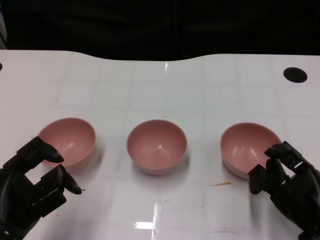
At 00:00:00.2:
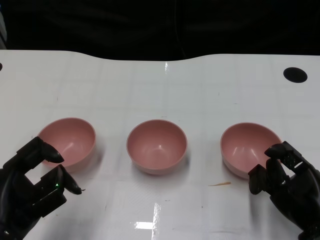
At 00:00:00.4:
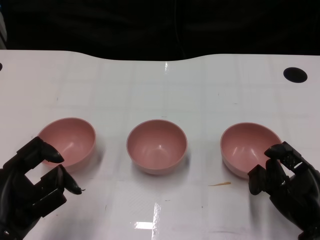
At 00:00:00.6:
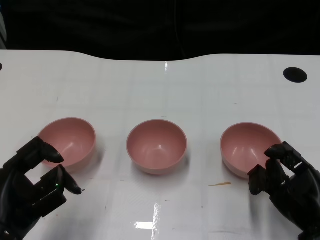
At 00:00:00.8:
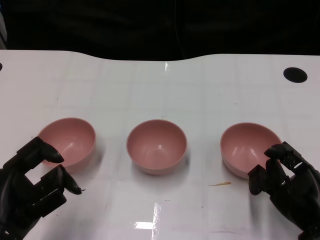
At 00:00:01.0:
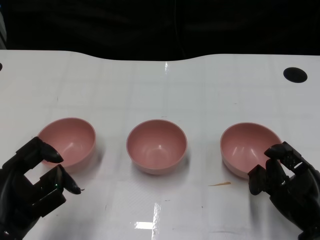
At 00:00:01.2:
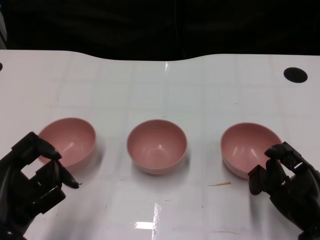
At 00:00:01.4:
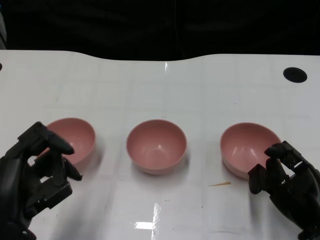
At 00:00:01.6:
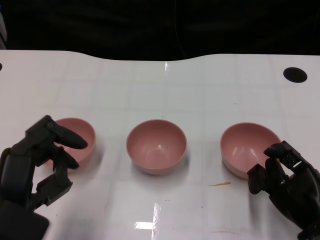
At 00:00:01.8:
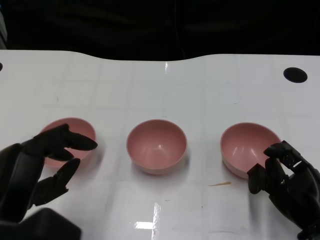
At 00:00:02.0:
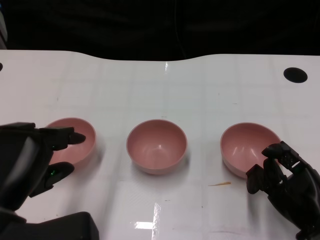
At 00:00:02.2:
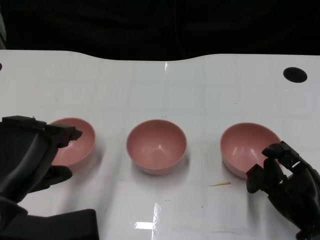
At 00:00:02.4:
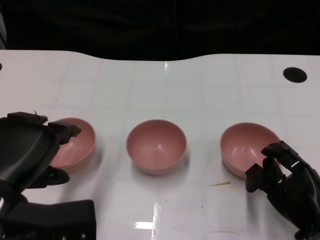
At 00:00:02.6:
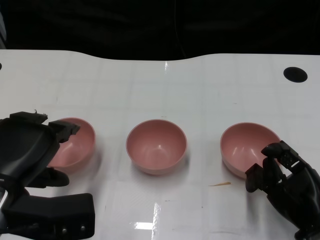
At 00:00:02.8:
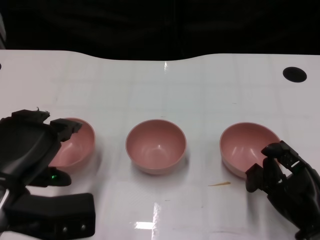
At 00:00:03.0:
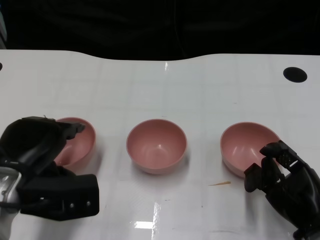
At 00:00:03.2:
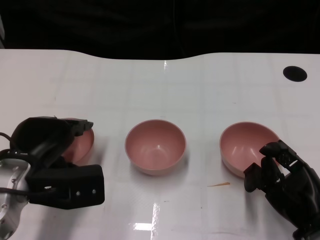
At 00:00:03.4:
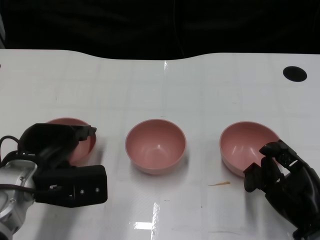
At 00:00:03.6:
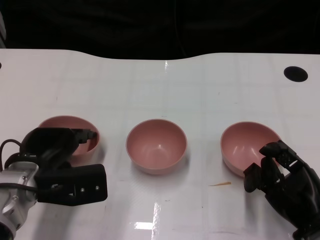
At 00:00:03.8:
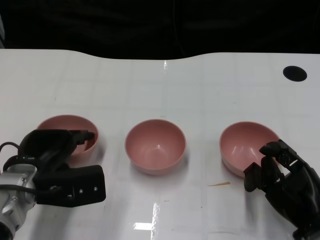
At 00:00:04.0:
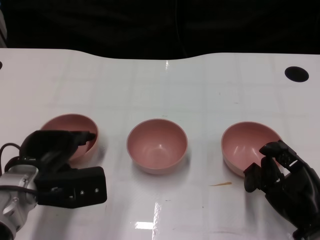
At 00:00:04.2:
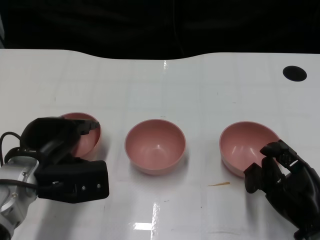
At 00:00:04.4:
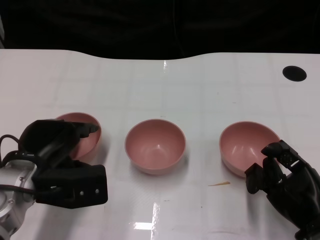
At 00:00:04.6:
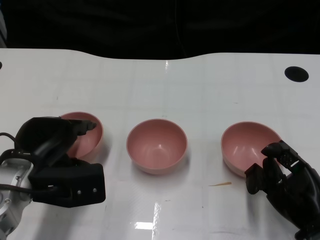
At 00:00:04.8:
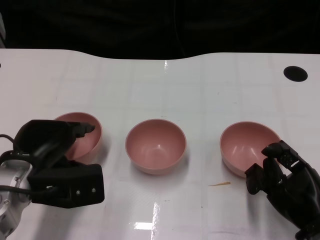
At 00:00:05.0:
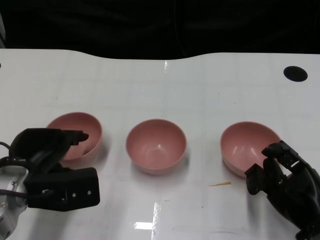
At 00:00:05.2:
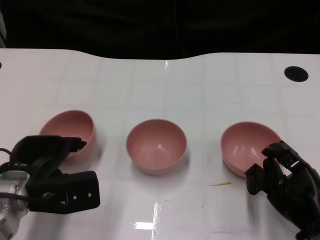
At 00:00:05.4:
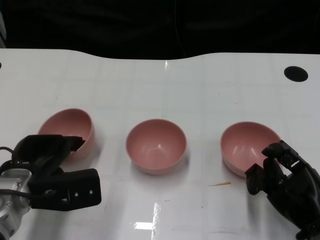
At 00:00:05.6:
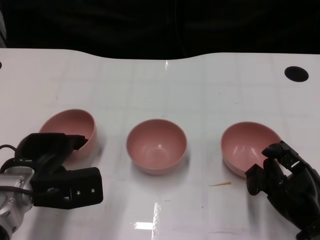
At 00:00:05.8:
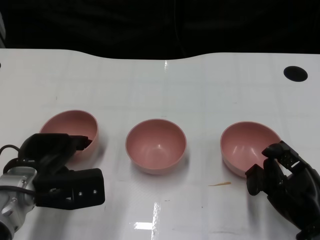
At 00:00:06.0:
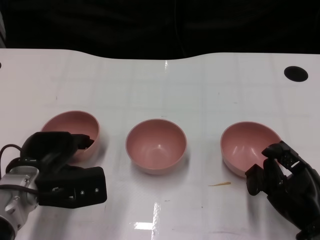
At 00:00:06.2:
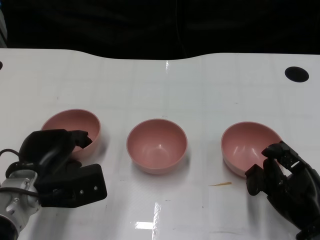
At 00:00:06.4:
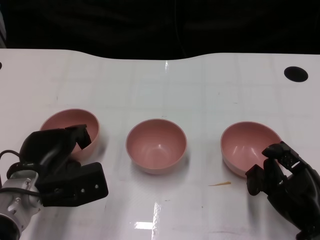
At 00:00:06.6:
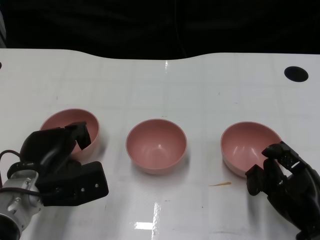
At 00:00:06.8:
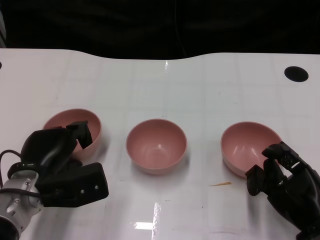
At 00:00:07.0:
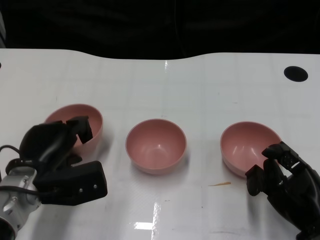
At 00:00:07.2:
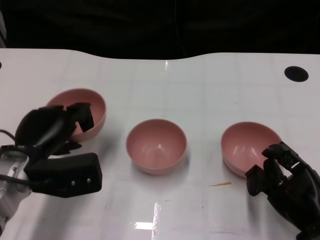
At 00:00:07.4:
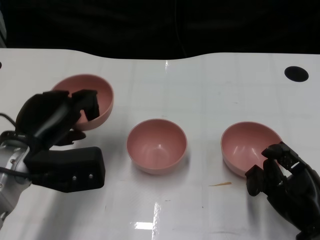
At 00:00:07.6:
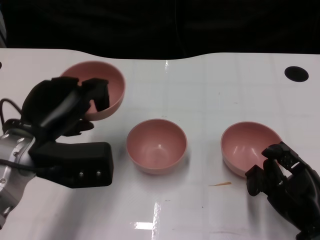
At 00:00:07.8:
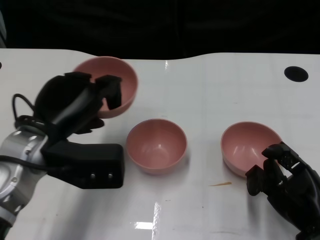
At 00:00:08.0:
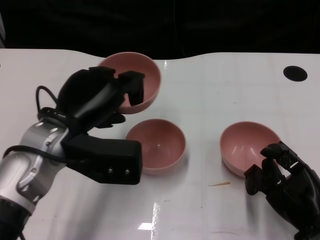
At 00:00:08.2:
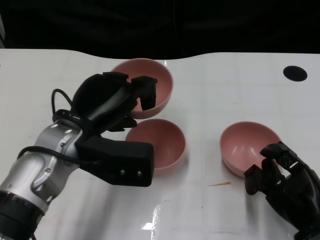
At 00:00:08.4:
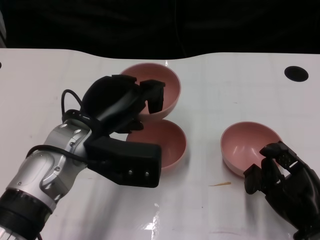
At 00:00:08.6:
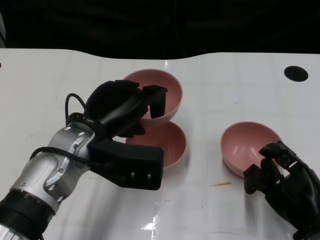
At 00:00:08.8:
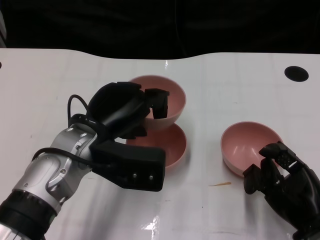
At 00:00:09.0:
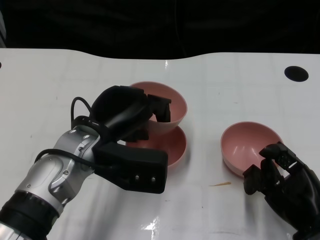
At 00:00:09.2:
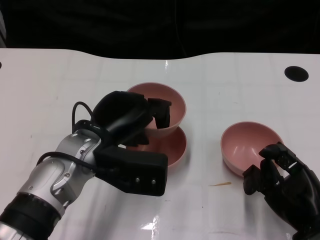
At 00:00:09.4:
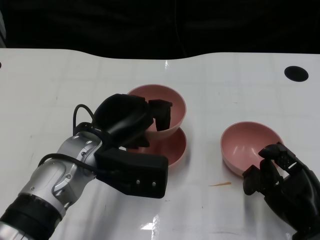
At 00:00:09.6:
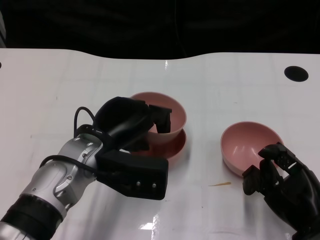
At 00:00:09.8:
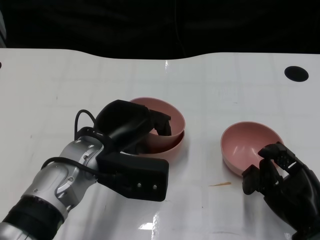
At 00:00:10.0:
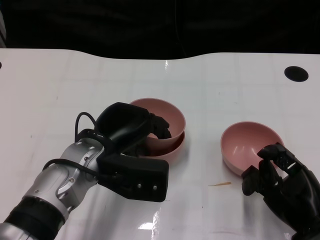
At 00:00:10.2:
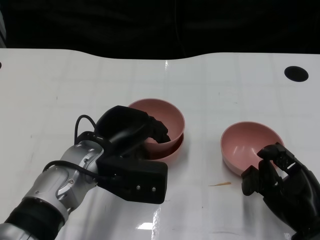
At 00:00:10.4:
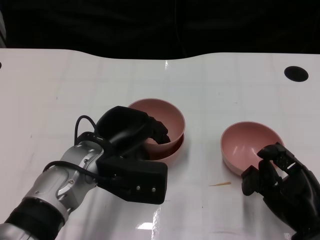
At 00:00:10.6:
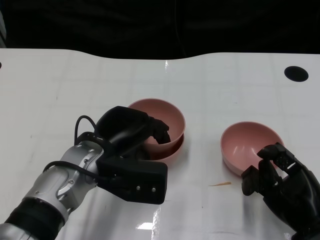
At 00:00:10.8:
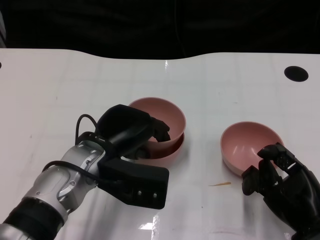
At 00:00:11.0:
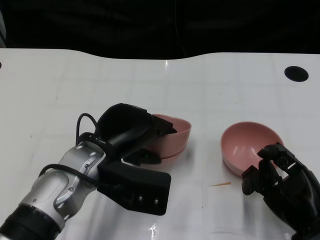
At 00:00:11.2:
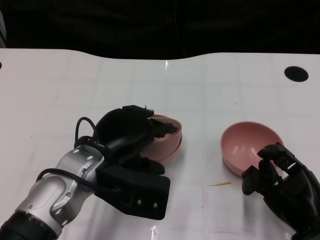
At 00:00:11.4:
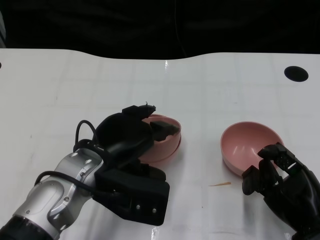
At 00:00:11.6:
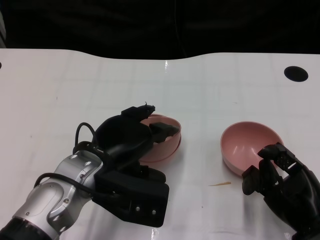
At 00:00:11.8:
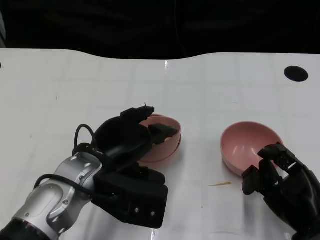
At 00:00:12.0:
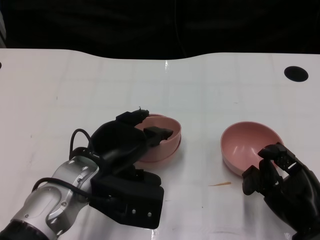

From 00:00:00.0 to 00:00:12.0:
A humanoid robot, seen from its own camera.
Task of the whole recording: Pick up the bowl on one side of the table and place it on top of the middle bowl, then pick up the bowl on the other side of the table and place it on top of the middle bowls.
Step, from 00:00:01.2 to 00:00:07.0: Grasp the bowl on the left with the left gripper.
From 00:00:01.6 to 00:00:03.0: The left hand is displaced forward by approximately 10 cm.
From 00:00:03.0 to 00:00:04.4: There are only small adjustments of the hands.
From 00:00:04.4 to 00:00:06.0: The hands move only a little.
From 00:00:06.0 to 00:00:07.6: The left hand goes some 10 cm upward.
From 00:00:07.6 to 00:00:09.0: The left hand heads to the right, covering some 10 cm.
From 00:00:09.0 to 00:00:12.0: There are only small adjustments of the hands.

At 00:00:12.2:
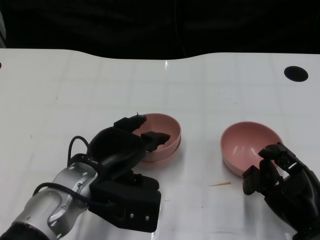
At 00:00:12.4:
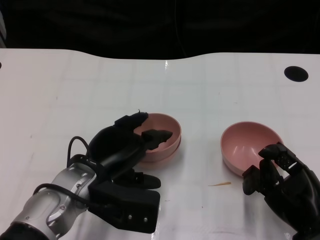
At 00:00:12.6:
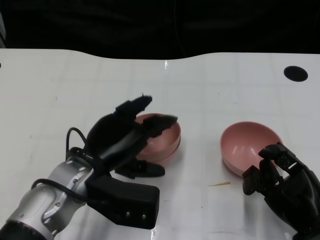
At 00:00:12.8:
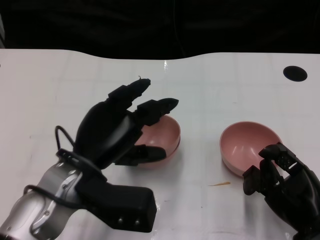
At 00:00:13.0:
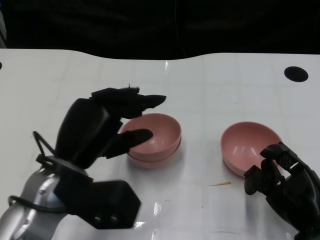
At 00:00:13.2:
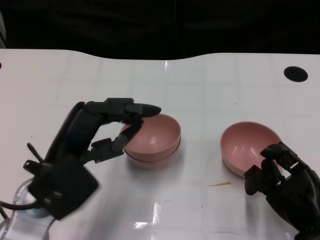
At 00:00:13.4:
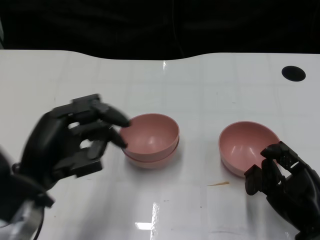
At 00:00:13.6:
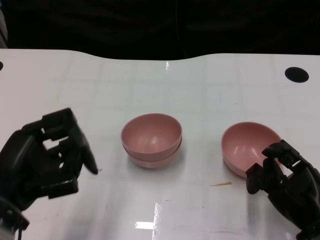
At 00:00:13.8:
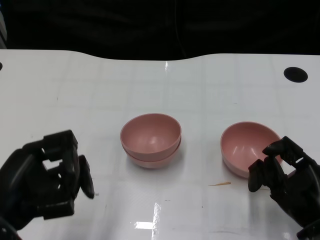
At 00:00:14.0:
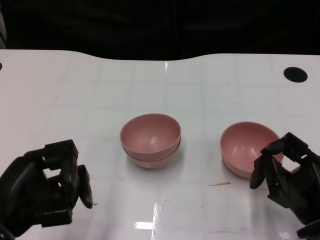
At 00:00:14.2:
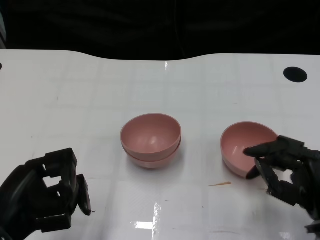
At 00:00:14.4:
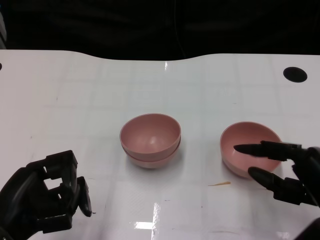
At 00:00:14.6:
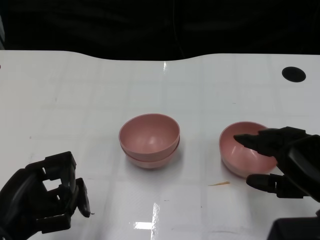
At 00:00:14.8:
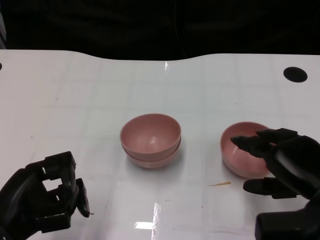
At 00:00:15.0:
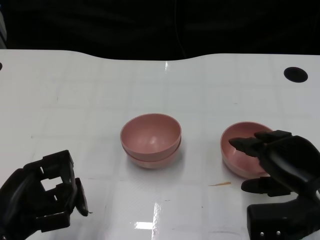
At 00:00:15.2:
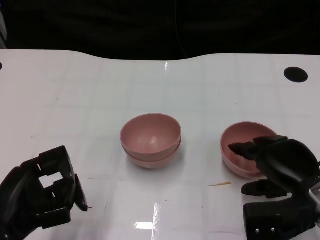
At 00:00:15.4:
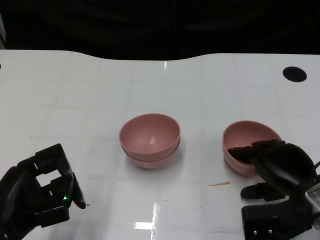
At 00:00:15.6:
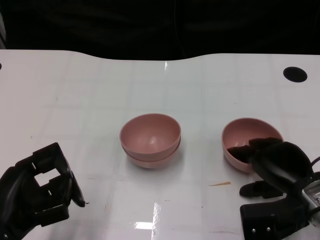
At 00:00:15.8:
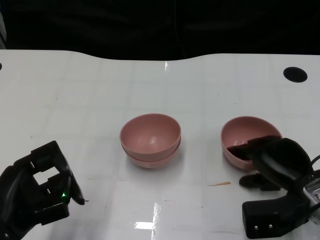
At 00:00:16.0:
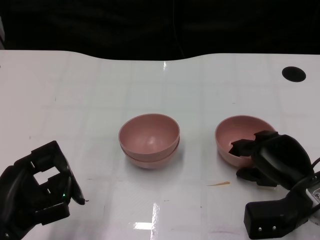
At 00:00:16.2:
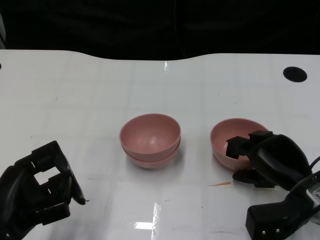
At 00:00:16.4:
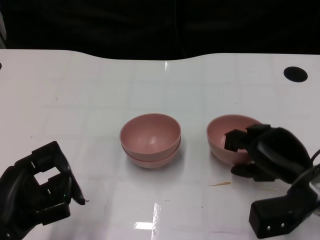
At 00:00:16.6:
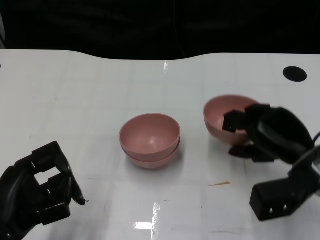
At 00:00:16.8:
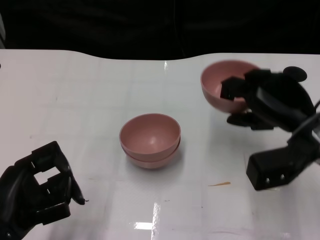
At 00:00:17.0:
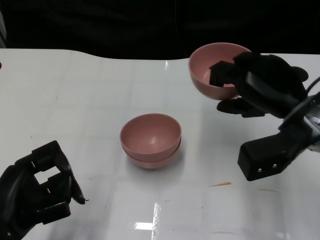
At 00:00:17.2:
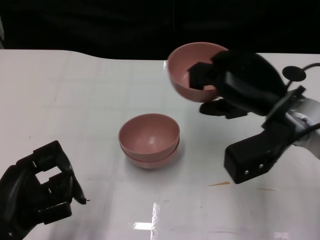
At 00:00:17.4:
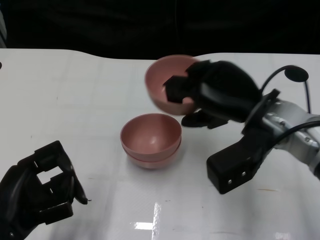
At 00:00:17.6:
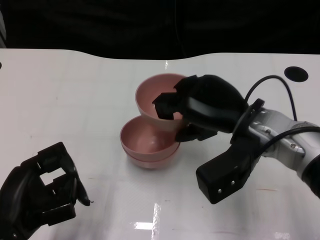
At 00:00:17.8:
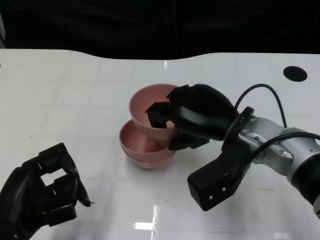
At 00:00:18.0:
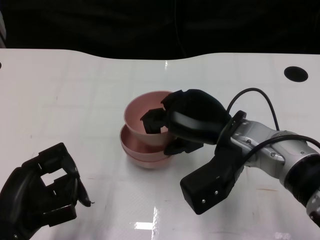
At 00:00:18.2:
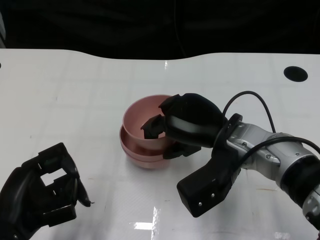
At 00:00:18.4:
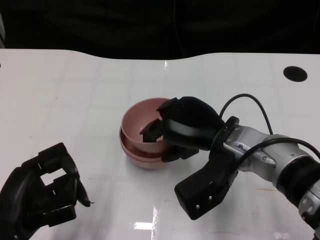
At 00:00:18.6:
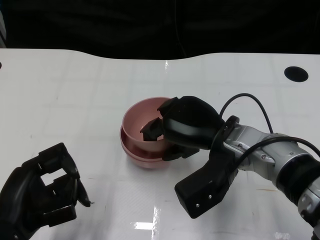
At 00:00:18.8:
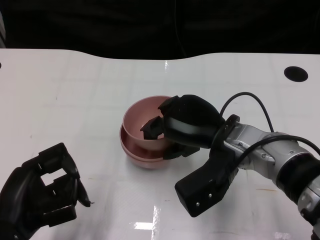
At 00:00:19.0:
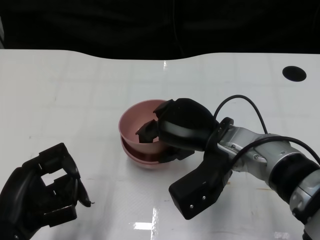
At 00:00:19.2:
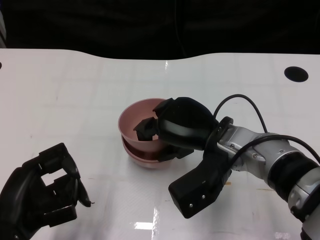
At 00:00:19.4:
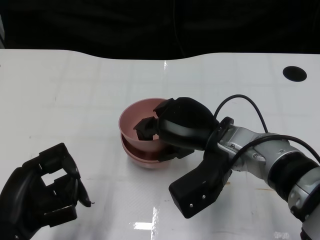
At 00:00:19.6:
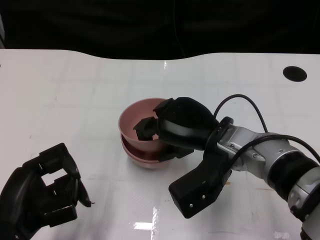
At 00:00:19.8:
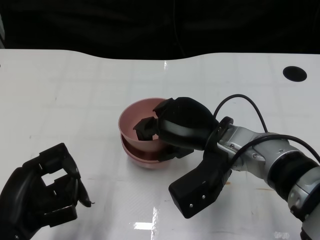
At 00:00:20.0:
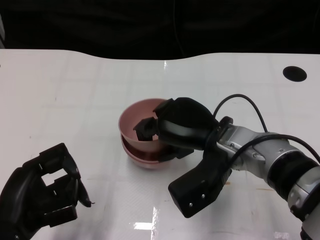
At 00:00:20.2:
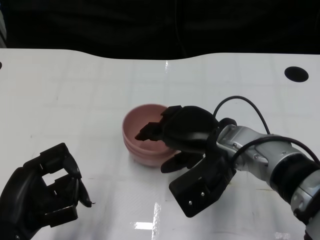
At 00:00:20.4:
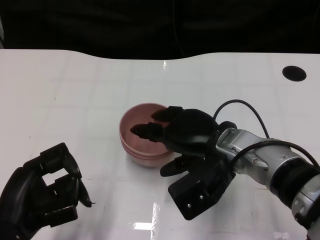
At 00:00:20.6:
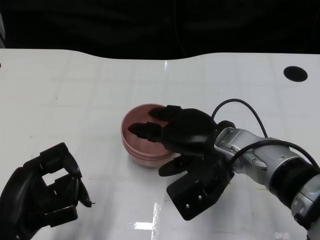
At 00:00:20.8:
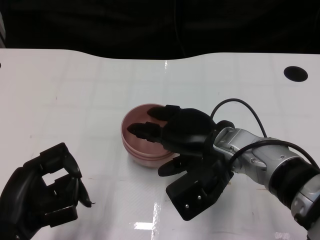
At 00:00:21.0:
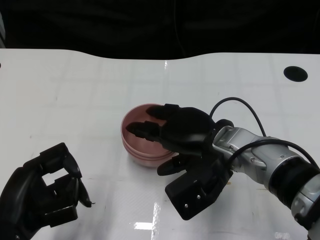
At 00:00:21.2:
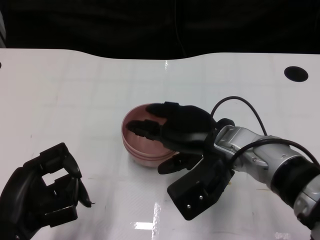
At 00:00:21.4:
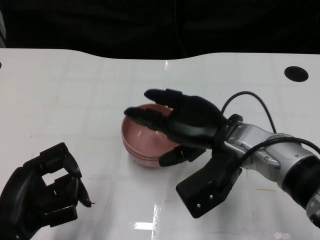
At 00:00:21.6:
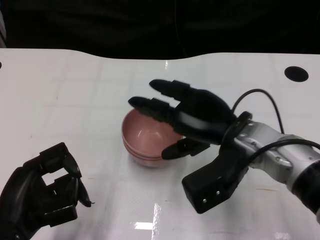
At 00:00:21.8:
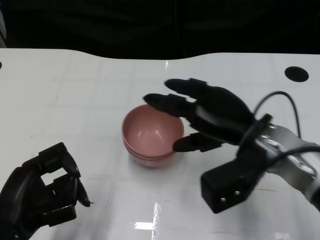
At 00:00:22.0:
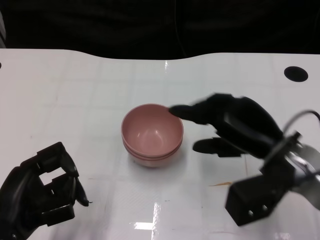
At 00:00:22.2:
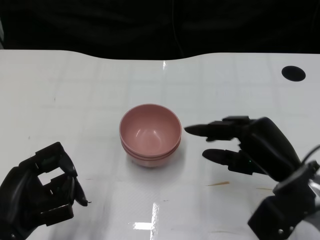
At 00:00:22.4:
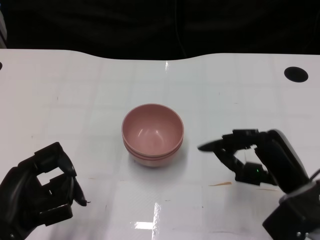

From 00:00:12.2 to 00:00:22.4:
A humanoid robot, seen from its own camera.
Task of the whole recording: Pick up the bowl on one side of the table and place it on top of the middle bowl, then pick up the bowl on the other side of the table and place it on top of the middle bowls.
Step, from 00:00:12.6 to 00:00:16.4: Grasp the bowl on the right with the right gripper.
Step, from 00:00:16.6 to 00:00:20.8: Place the bowl on the right onto the bowl in the middle with right gripper.
From 00:00:12.2 to 00:00:13.6: The left hand travels to the left and backward by about 15 cm.
From 00:00:13.6 to 00:00:15.2: The right hand changes place by about 5 cm.
From 00:00:16.6 to 00:00:18.0: The right hand is displaced to the left by roughly 10 cm.
From 00:00:18.0 to 00:00:21.0: The hands stay close to where they were, moving slightly.
From 00:00:21.0 to 00:00:22.4: The right hand shifts approximately 15 cm to the right and backward.
